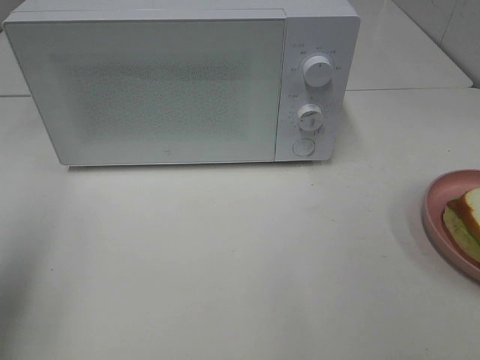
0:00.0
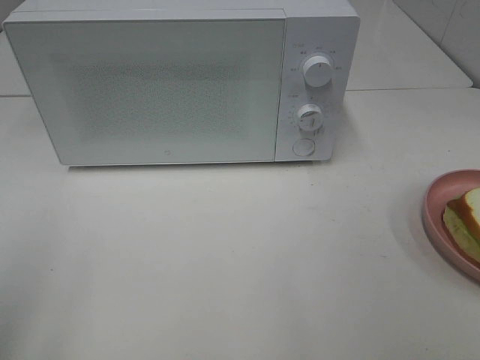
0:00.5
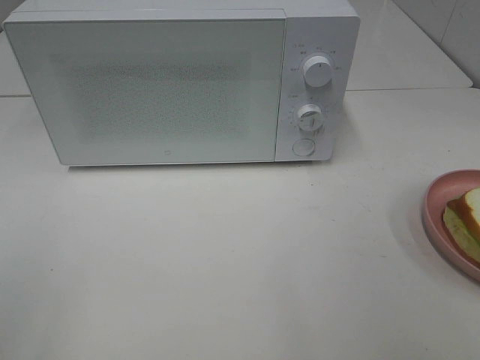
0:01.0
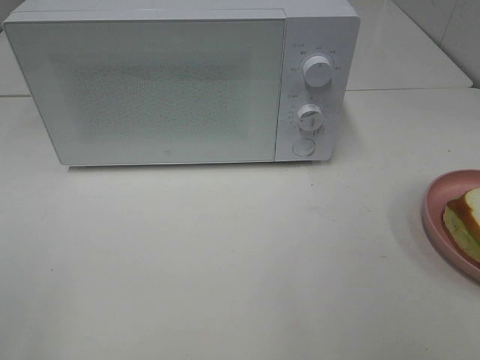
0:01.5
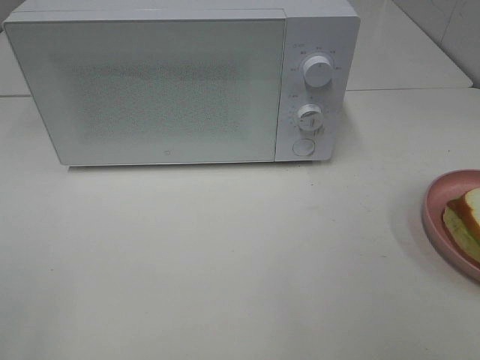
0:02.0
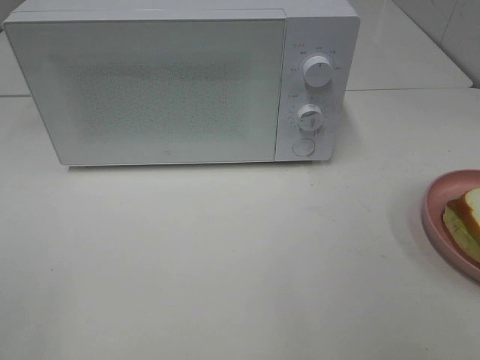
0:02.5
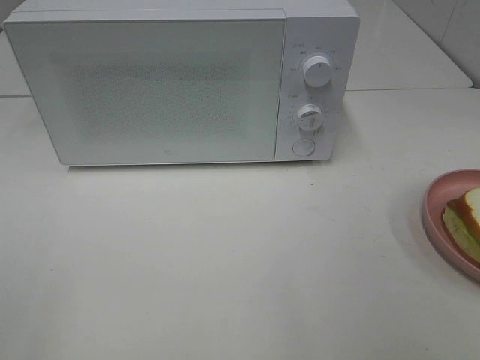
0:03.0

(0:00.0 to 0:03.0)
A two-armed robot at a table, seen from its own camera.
Task of the whole recording: Heat Sandwich.
0:00.0 - 0:01.5: The left gripper shifts some 15 cm backward.
0:01.5 - 0:03.0: Both grippers stay about where they are.
